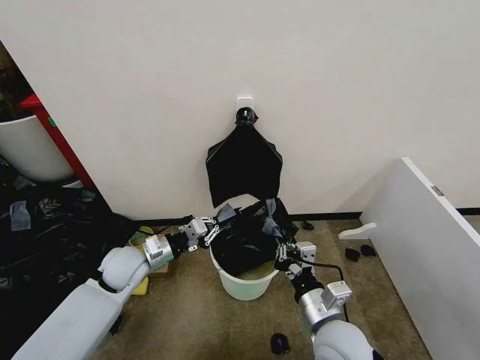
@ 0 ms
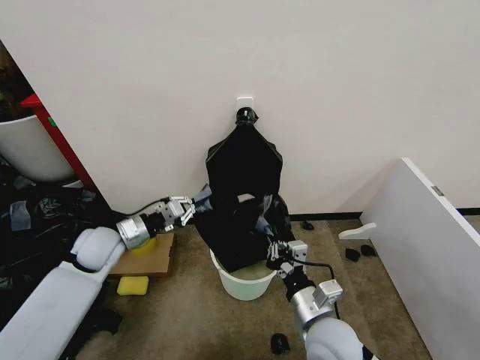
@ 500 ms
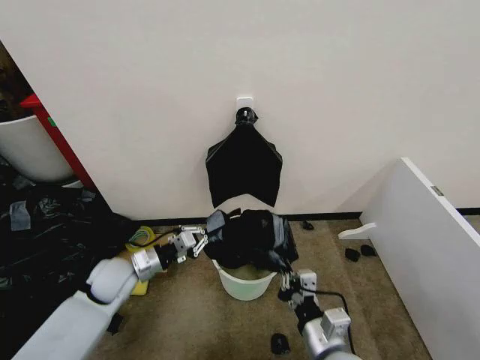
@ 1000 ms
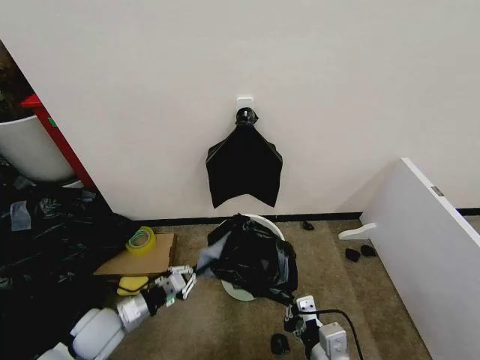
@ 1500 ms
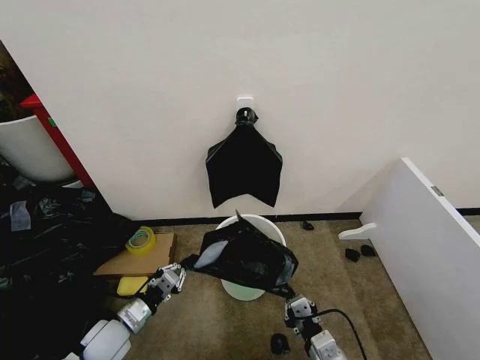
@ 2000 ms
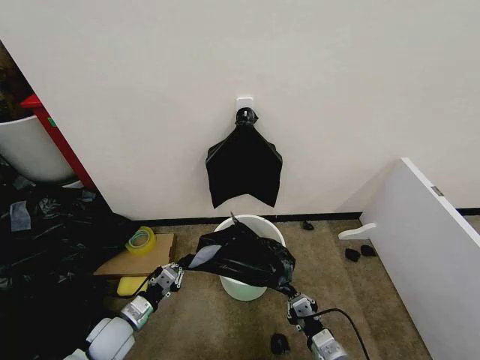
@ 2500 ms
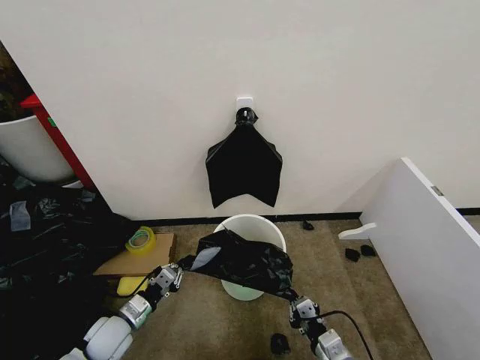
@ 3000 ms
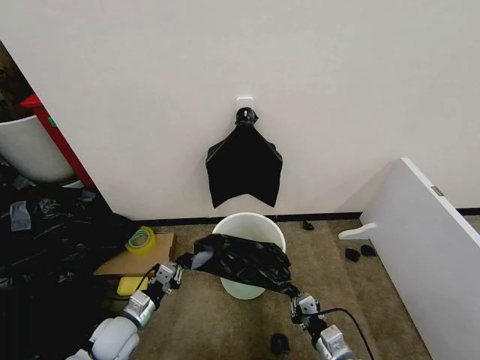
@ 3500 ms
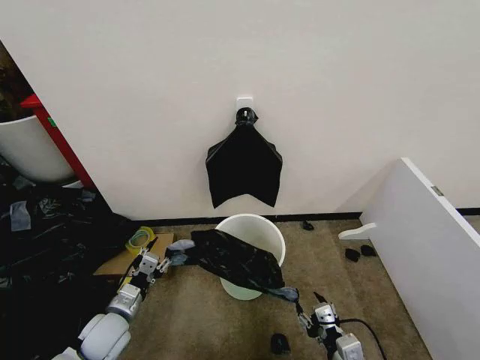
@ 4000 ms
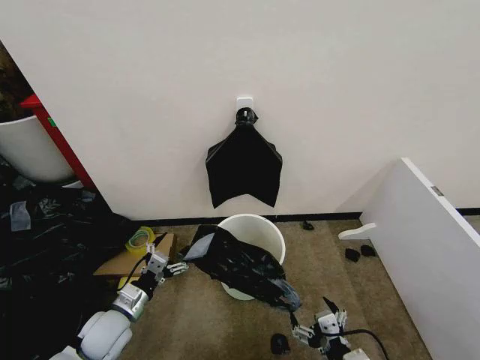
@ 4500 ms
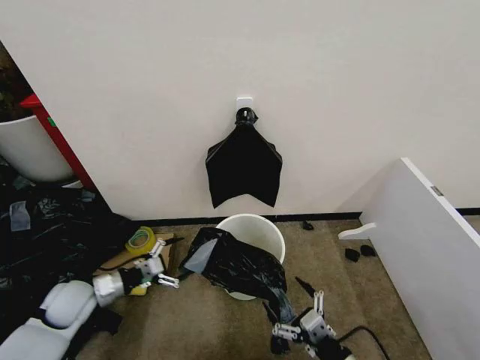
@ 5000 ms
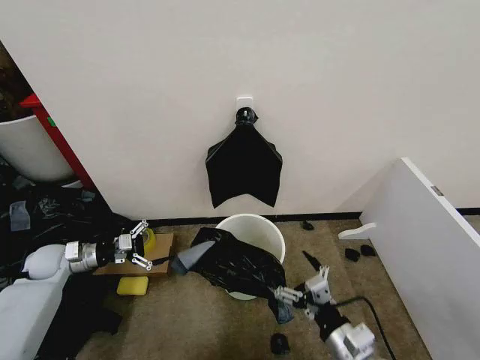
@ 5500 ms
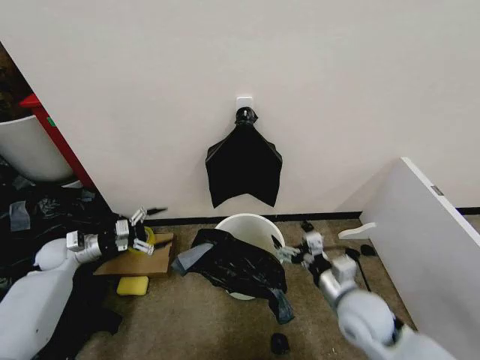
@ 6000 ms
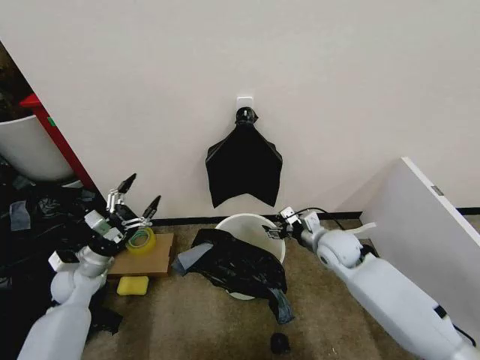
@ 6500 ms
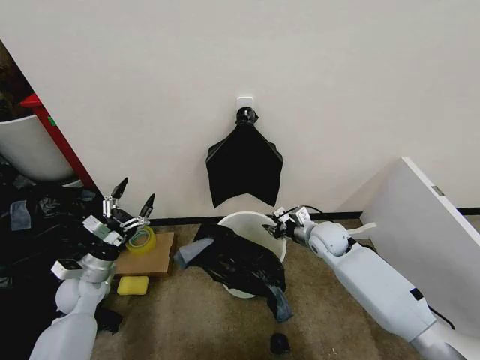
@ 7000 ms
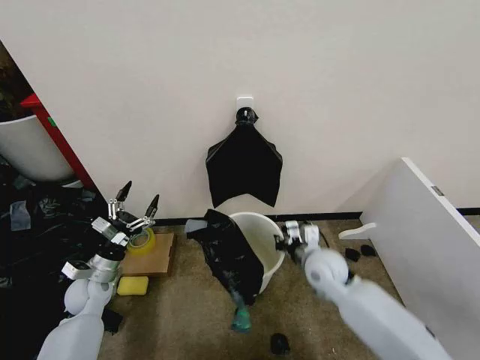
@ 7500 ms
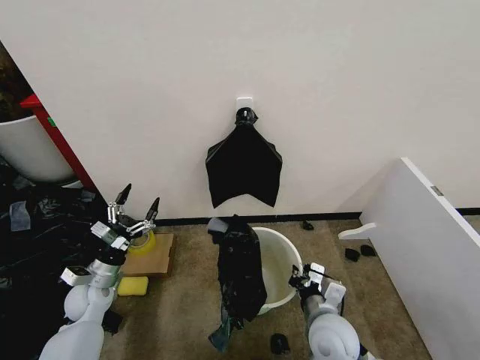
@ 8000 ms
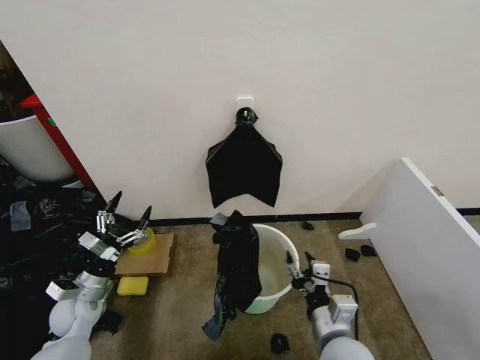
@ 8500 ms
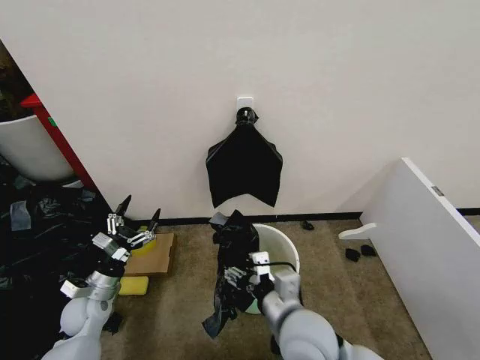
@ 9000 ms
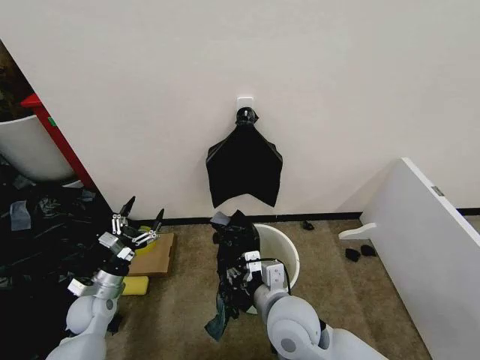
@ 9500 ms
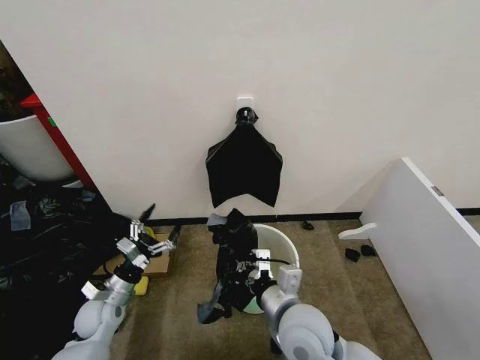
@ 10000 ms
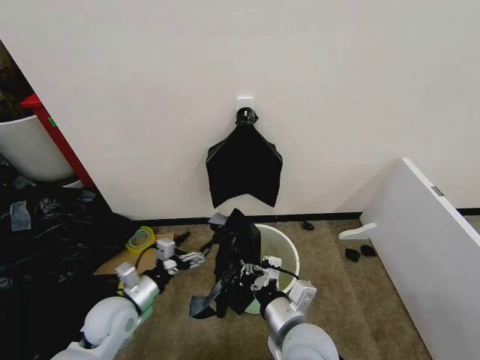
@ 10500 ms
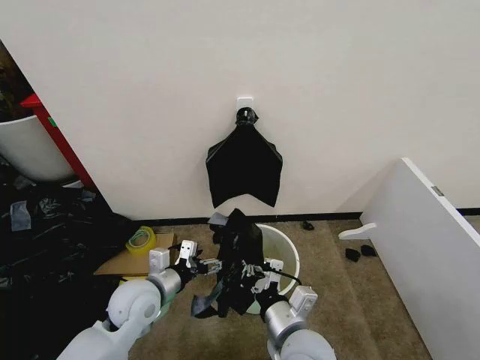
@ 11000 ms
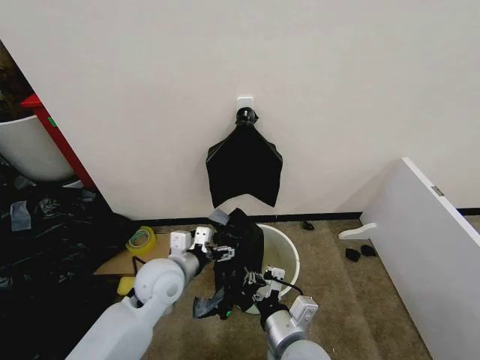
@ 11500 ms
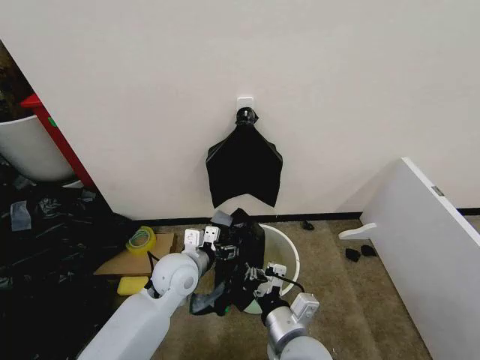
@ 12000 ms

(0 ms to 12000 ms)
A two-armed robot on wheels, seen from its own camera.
Task of the whole recording: Place the garbage bag over the trash bin.
0 ms - 2000 ms: The left gripper travels backward and downward by roughly 15 cm, while the right gripper is displaced downward and backward by some 10 cm.
2000 ms - 4000 ms: The right gripper opens, while the left gripper opens up.
4000 ms - 6000 ms: The right gripper is displaced forward and upward by roughly 15 cm, and opens; the left gripper shifts roughly 25 cm to the left and forward, and opens its fingers.
6000 ms - 8000 ms: The right gripper moves to the left, some 5 cm, travels forward and back again, about 20 cm each way, and closes its fingers, while the left gripper goes about 15 cm to the right and backward.
8000 ms - 10000 ms: The right gripper shifts approximately 10 cm upward and to the left, and opens, then closes once more.
10000 ms - 12000 ms: The right gripper ends up some 5 cm from where it was, while the left gripper moves to the right and upward, approximately 20 cm.

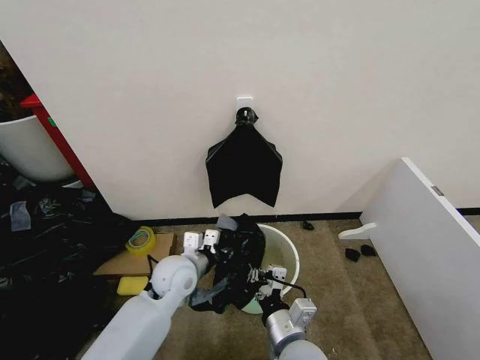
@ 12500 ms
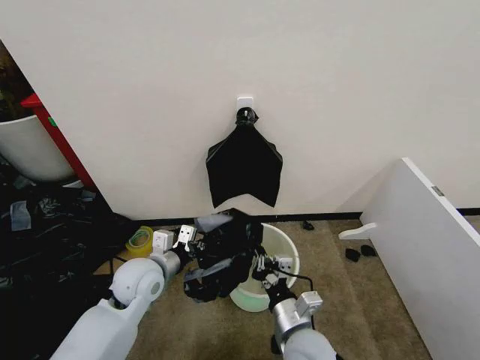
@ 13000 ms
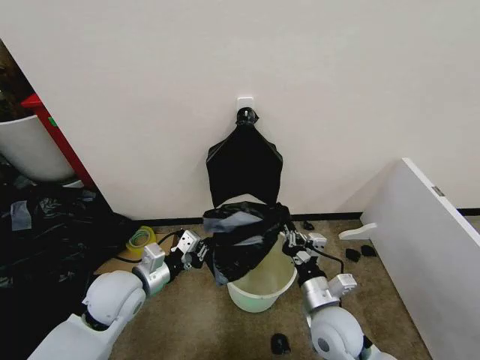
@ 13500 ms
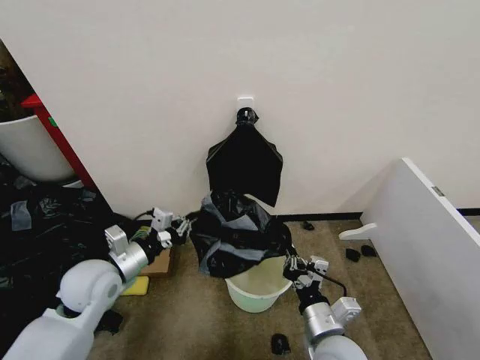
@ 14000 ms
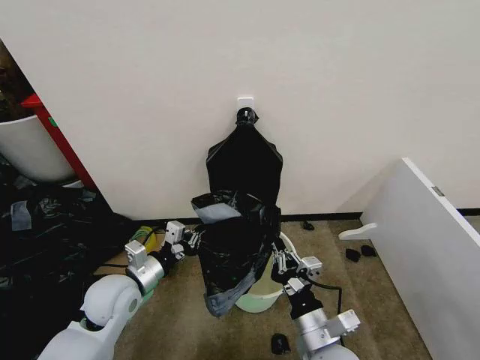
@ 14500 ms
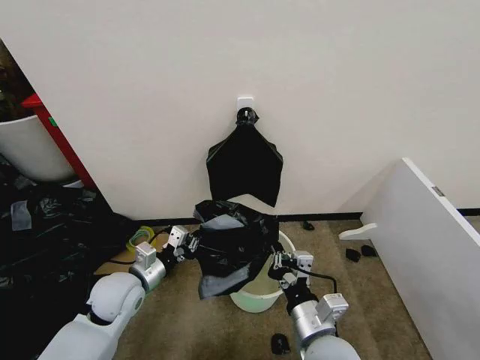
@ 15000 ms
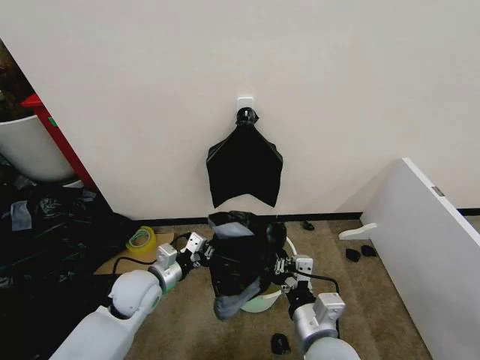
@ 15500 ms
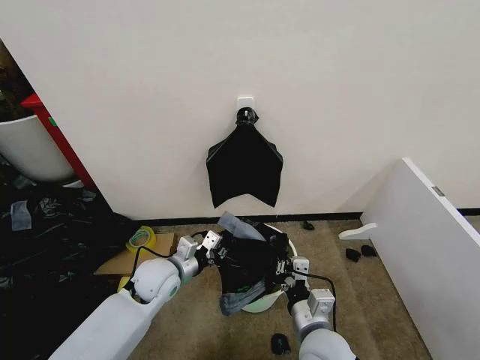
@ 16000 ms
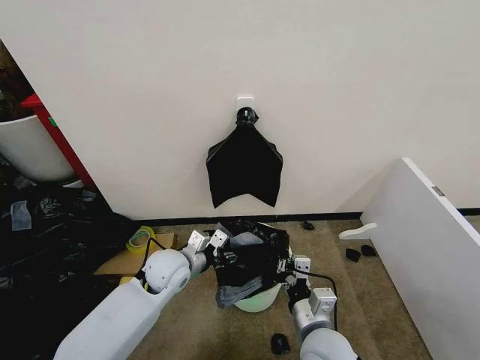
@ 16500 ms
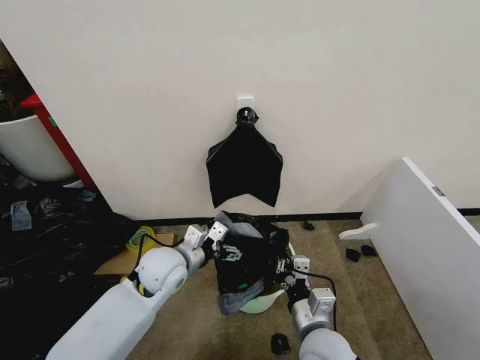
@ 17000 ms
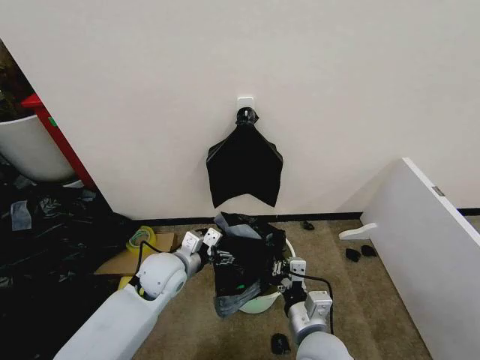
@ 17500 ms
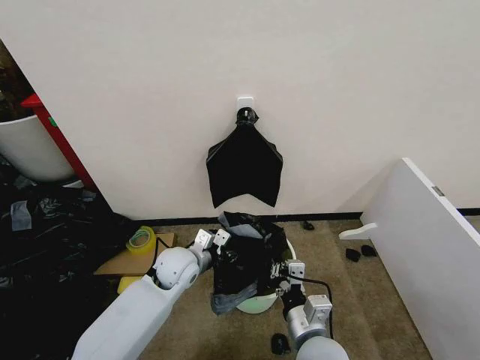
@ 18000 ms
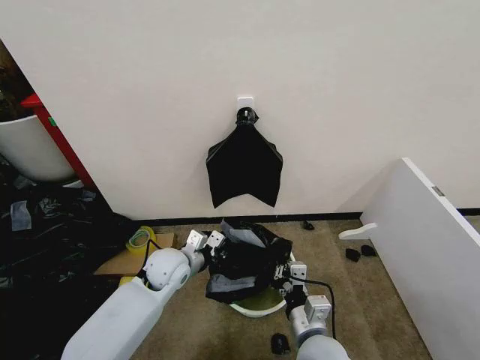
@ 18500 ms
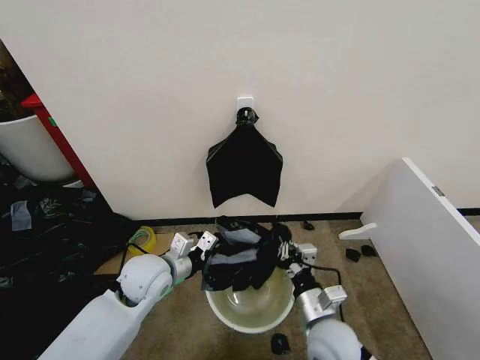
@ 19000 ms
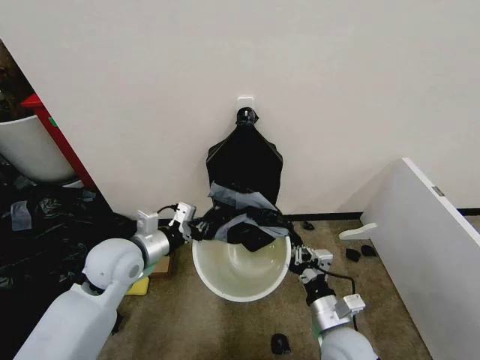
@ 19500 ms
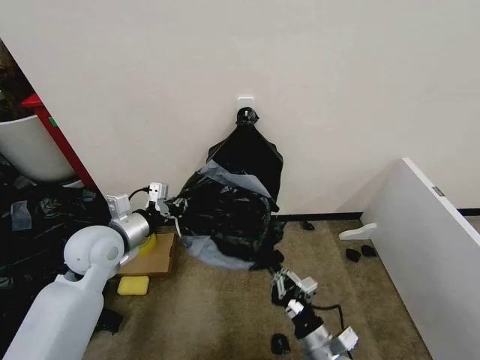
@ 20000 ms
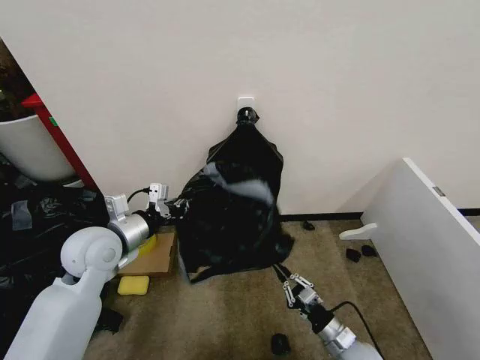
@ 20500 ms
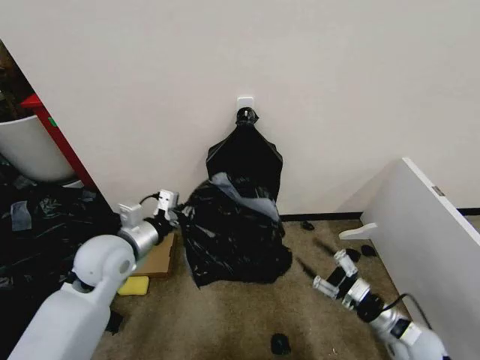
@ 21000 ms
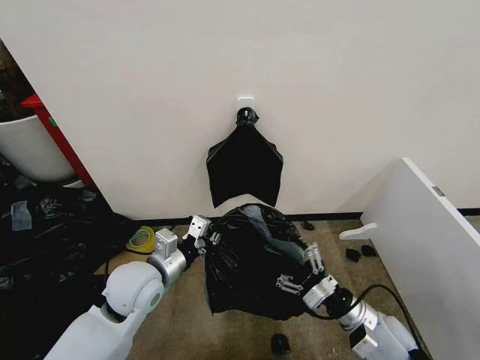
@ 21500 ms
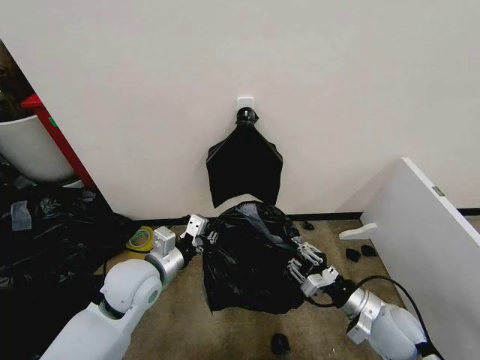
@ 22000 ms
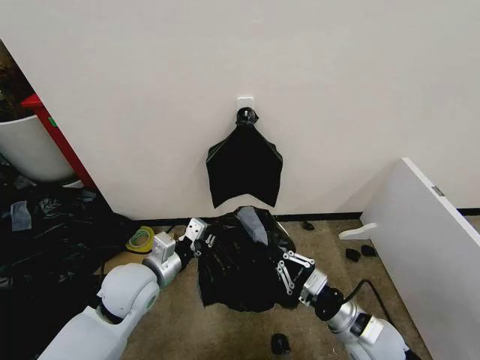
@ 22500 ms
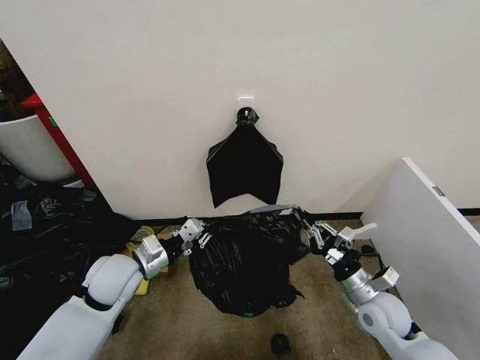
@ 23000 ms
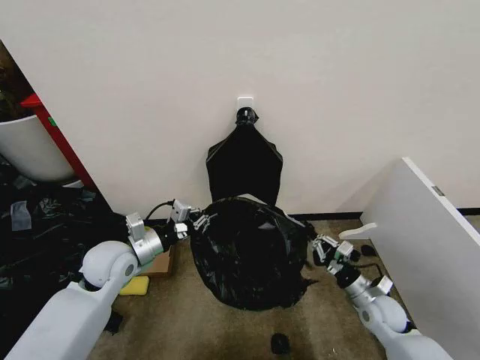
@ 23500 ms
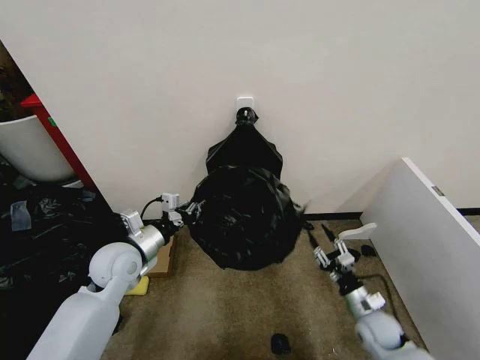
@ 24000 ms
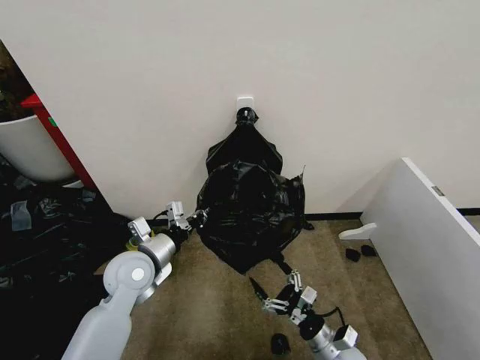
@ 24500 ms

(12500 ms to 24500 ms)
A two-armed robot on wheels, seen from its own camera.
Task of the whole recording: Place the garbage bag over the trash bin.
12500 ms - 14500 ms: The left gripper travels to the left and backward by roughly 10 cm, and closes up. Meanwhile the right gripper travels to the right by about 5 cm.
14500 ms - 16500 ms: The left gripper heads to the right and forward, covering roughly 10 cm, and opens its fingers.
16500 ms - 18500 ms: The left gripper closes.
18500 ms - 20500 ms: The right gripper shifts approximately 20 cm downward and to the right. Meanwhile the left gripper shifts roughly 15 cm upward and to the left.
20500 ms - 22500 ms: The left gripper shifts roughly 10 cm to the right and downward; the right gripper travels upward by about 15 cm, and opens, then closes once more.
22500 ms - 24500 ms: The right gripper heads downward, covering roughly 15 cm, and opens up.

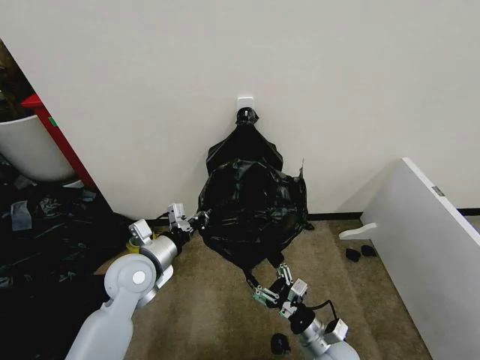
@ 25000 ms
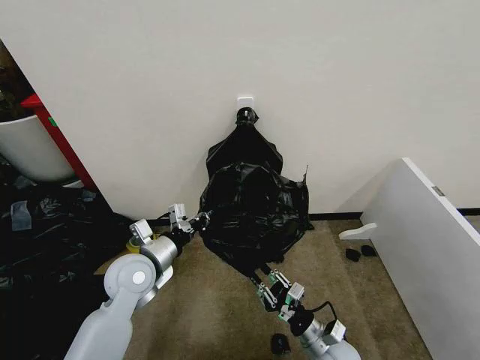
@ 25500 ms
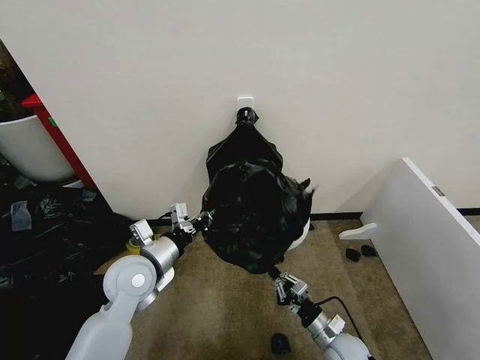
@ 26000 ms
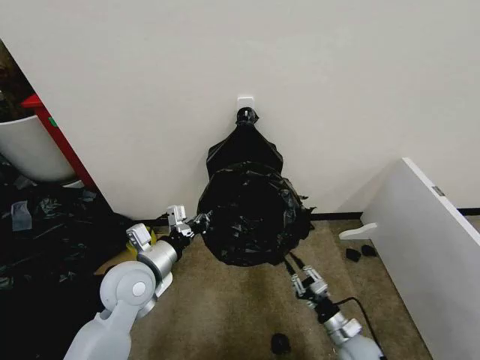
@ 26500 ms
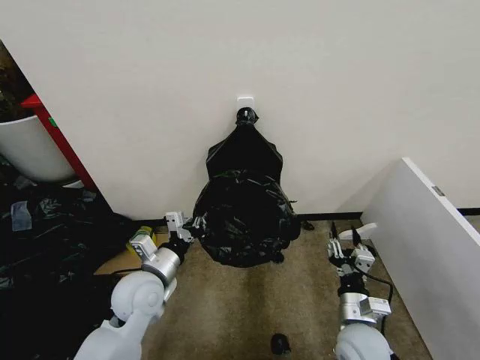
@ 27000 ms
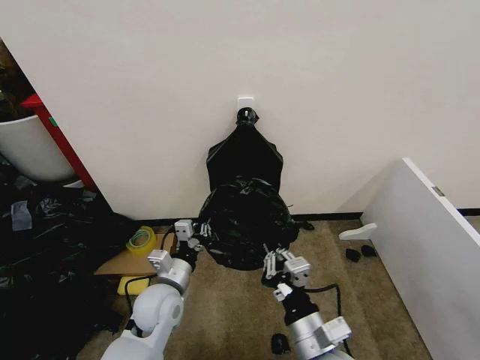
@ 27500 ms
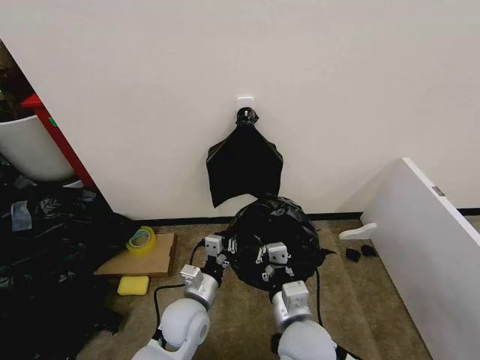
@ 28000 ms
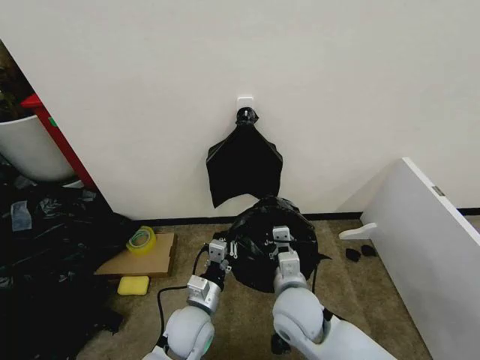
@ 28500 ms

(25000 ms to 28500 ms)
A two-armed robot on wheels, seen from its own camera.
Task of the whole recording: Place the garbage bag over the trash bin.
25000 ms - 27000 ms: The right gripper heads to the right, covering roughly 5 cm, and closes, then reopens.
27000 ms - 28500 ms: The left gripper travels to the right and downward by some 15 cm. The right gripper is displaced to the left and upward by some 20 cm, and closes its fingers.
